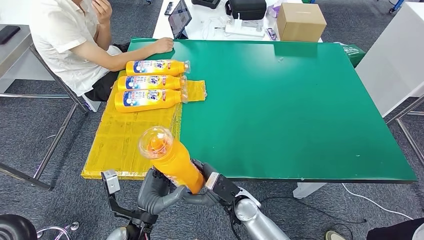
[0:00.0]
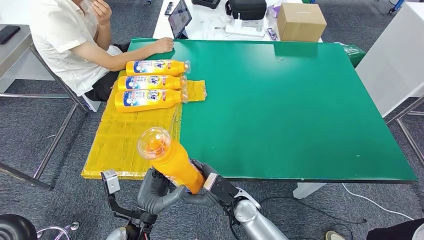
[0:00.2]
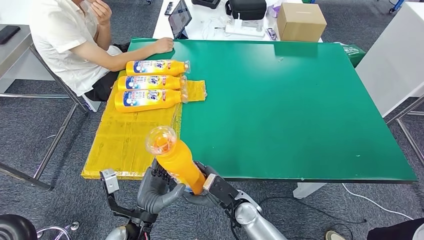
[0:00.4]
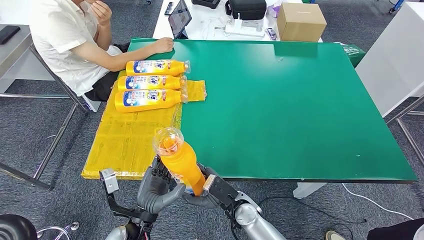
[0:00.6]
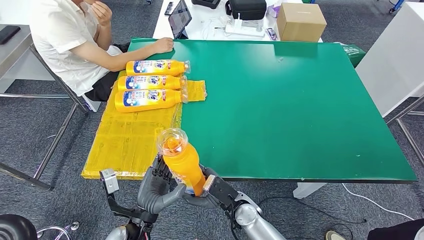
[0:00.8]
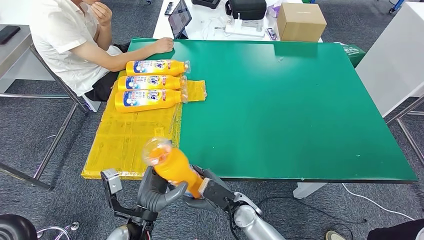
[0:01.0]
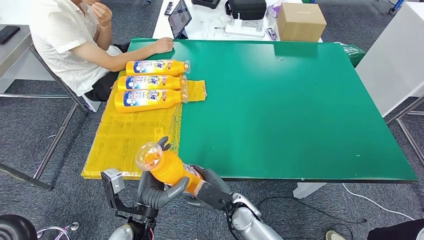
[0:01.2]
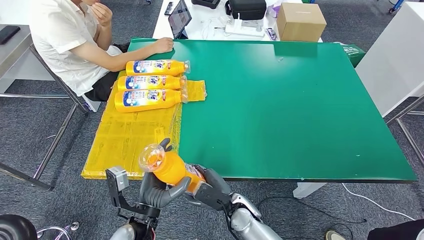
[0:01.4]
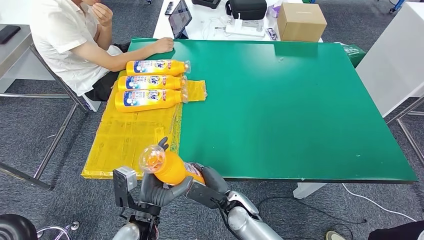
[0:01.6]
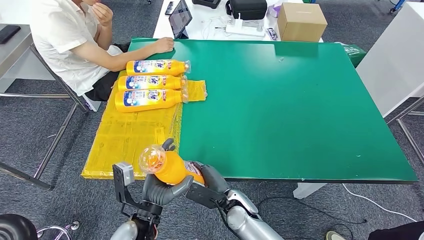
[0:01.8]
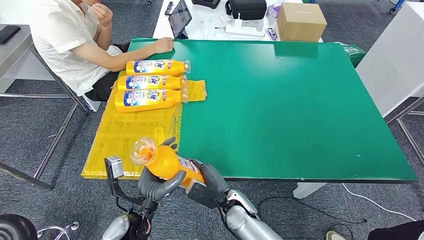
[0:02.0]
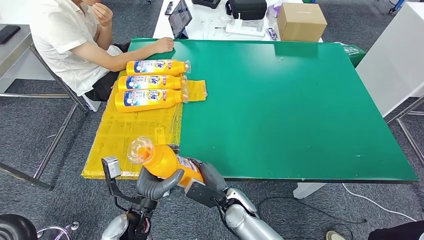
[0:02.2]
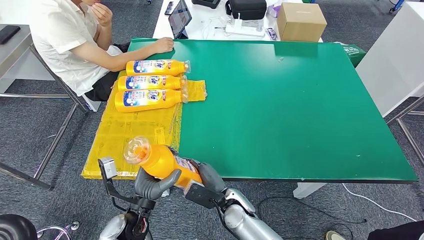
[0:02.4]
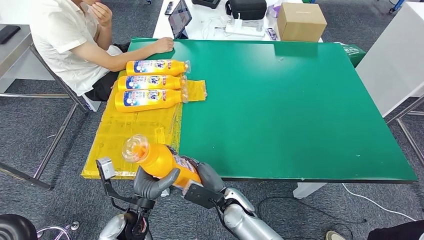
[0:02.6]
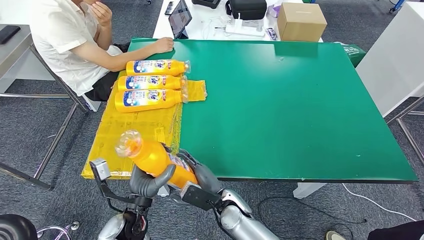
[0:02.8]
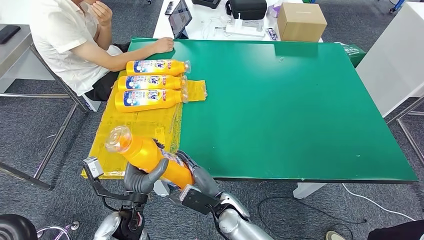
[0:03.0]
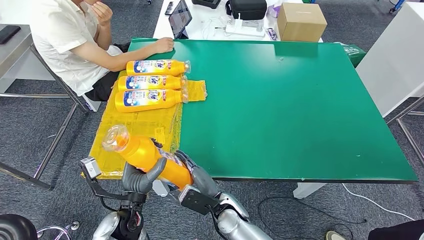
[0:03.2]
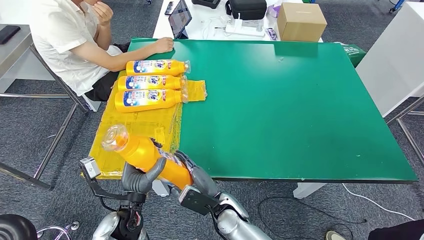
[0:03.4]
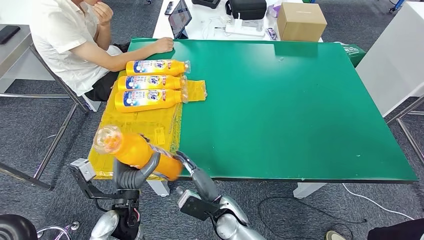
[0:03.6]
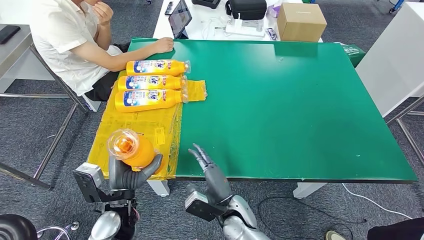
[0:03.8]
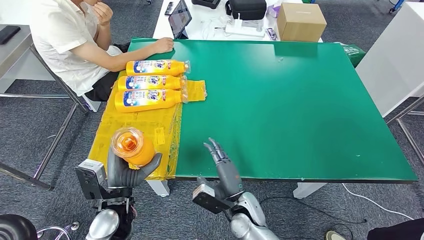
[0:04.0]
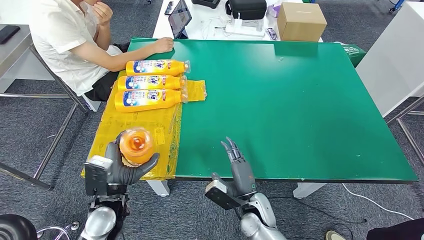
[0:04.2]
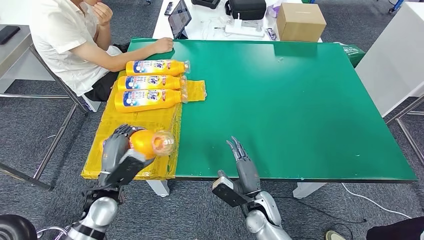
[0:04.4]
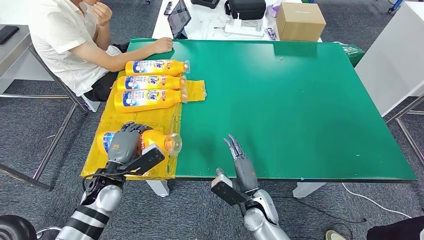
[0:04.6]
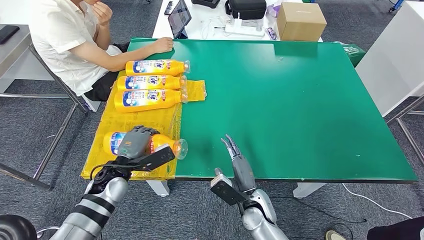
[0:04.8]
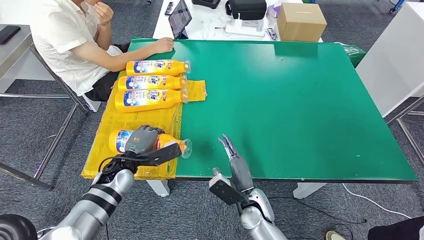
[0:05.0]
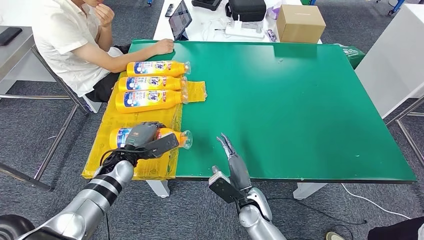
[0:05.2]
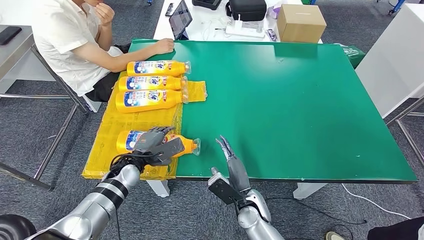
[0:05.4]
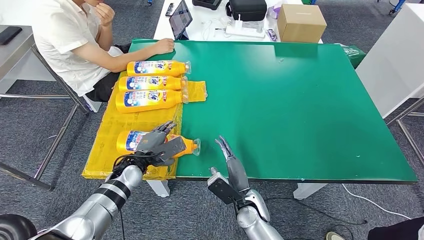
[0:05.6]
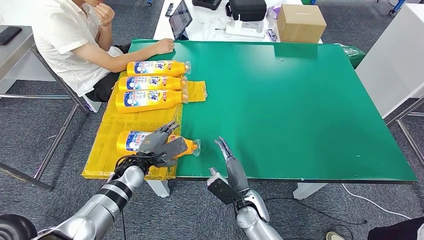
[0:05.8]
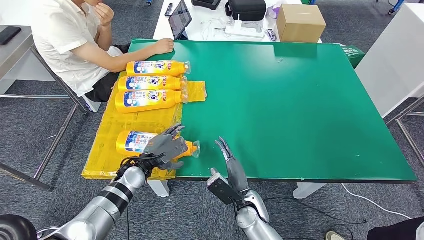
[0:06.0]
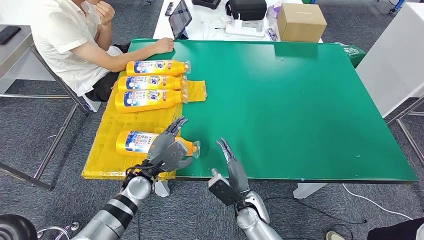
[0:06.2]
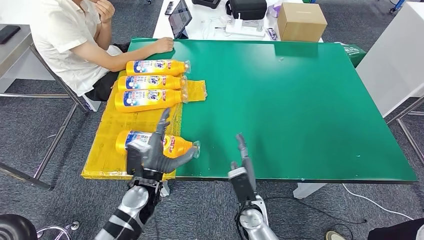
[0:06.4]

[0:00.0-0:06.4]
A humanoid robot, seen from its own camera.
Step, 0:00.0 to 0:06.4: Flip the fast-moving consumer goods bottle to the front side.
0:03.2 to 0:04.8: The right hand heads to the right, covering approximately 10 cm, while the left hand shifts about 10 cm forward and to the left.
0:04.8 to 0:06.4: The left hand is displaced to the right by some 10 cm.
